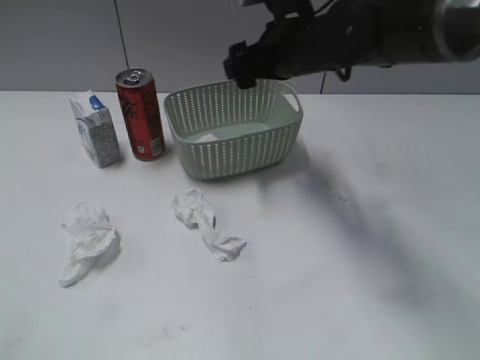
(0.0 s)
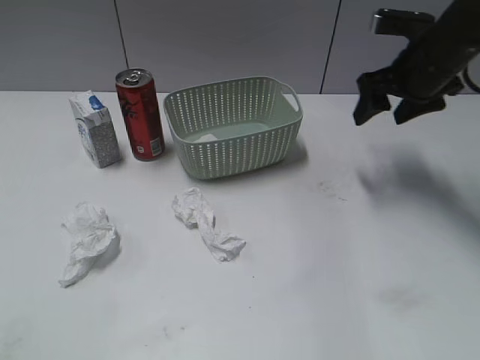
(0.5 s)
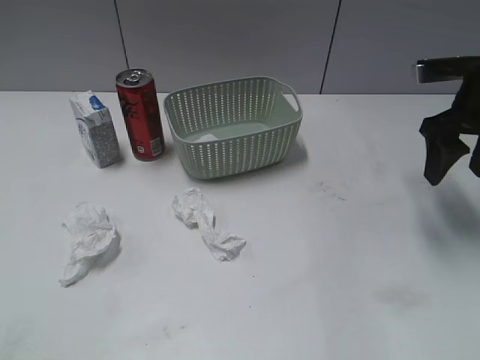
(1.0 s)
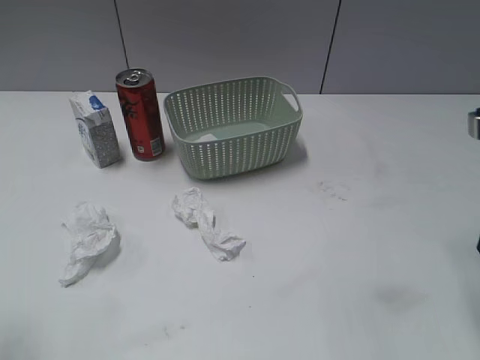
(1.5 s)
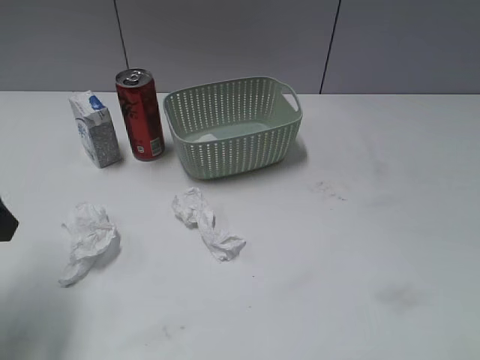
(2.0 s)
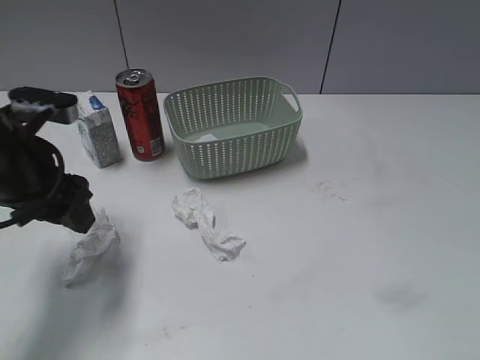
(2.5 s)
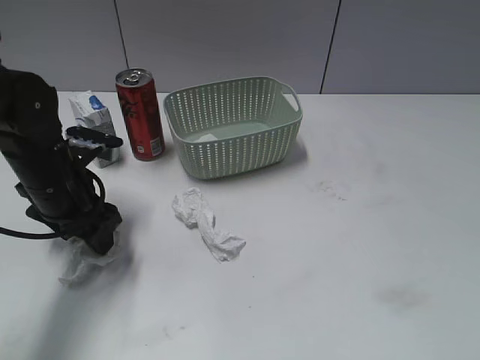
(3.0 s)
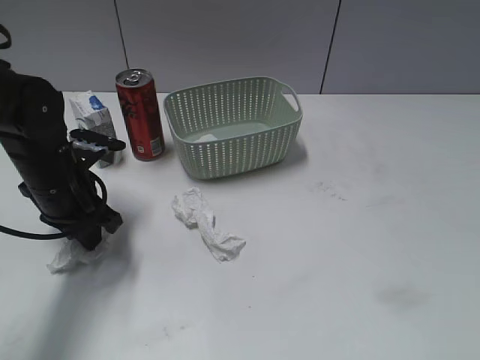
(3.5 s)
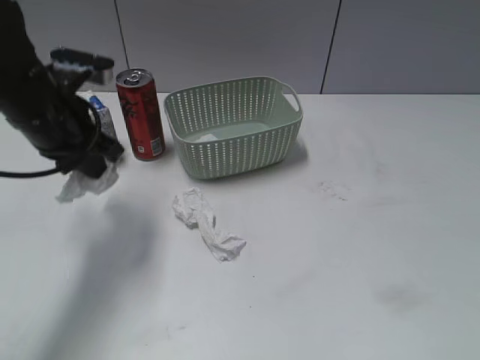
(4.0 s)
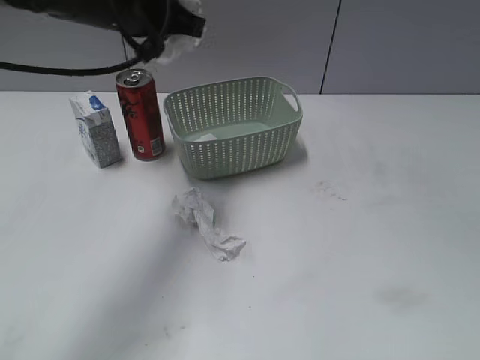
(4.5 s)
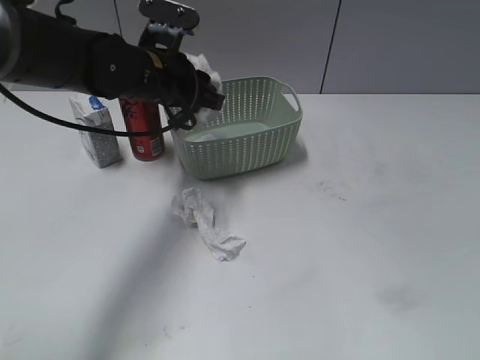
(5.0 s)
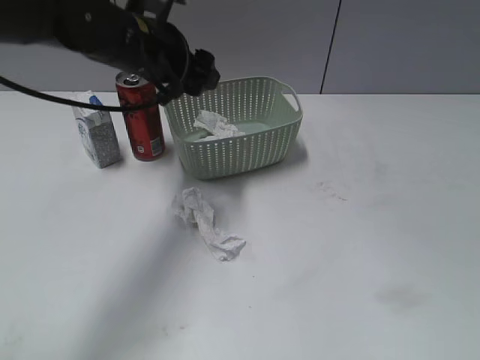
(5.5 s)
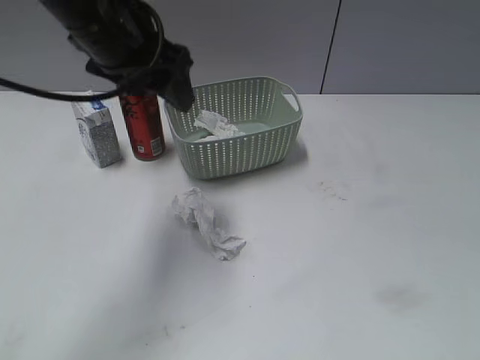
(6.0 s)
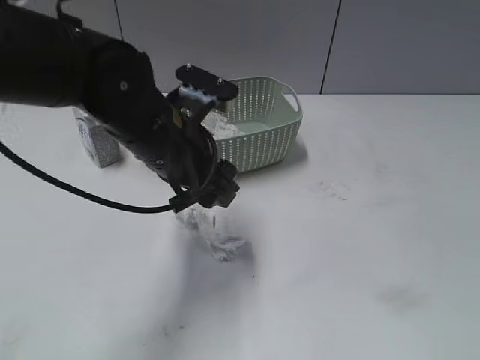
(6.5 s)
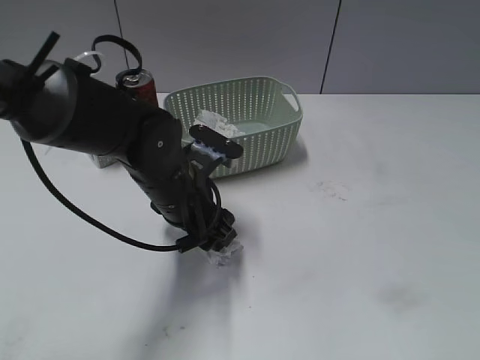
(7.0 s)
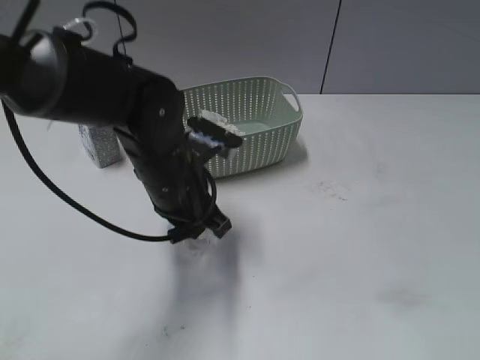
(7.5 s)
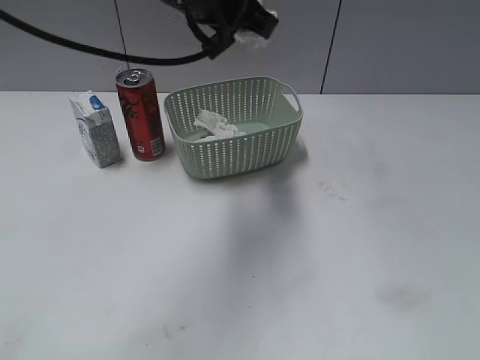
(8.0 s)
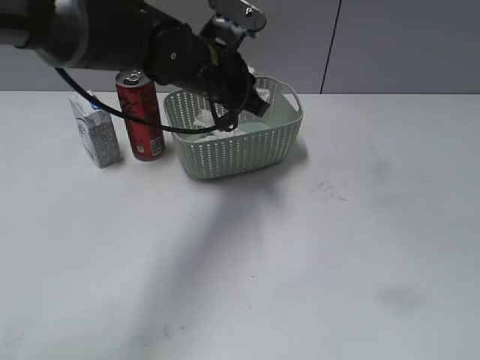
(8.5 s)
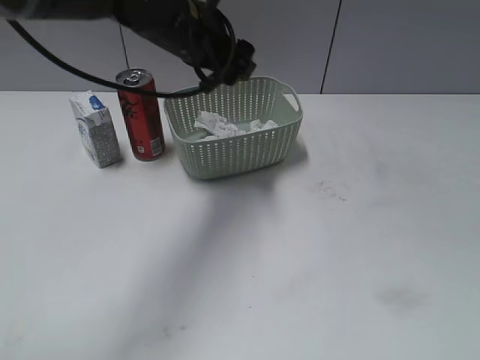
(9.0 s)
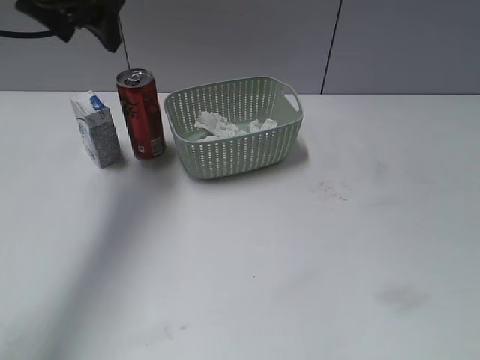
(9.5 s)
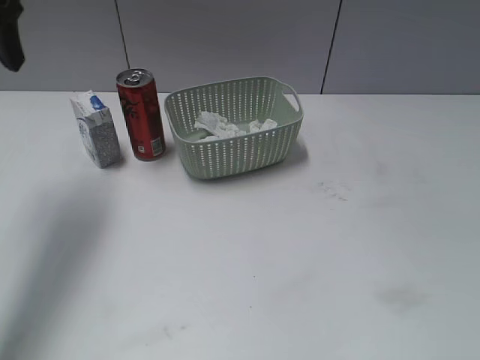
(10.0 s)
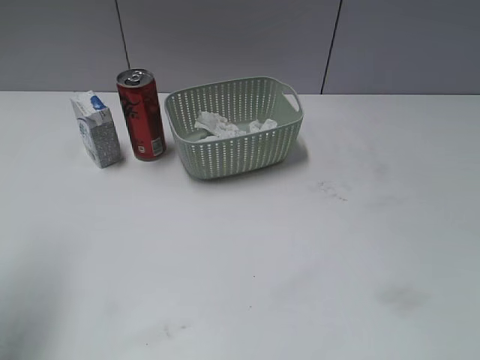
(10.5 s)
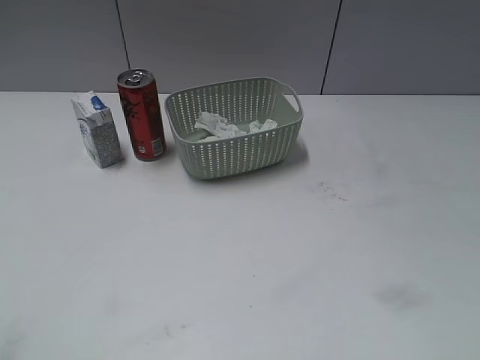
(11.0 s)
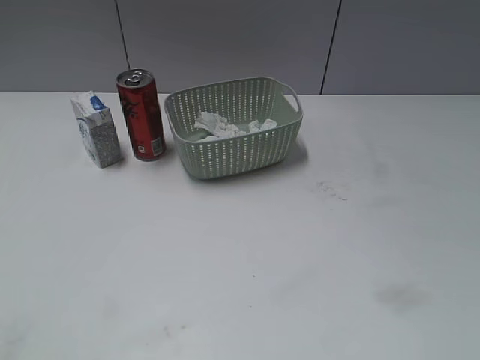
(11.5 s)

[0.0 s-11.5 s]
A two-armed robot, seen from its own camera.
Step, 0.0 to 3.5 s: Grasp the waste paper with left gripper.
Step, 4.0 to 5.0 s: Place the waste paper in the basket with left gripper.
Step, 5.5 to 7.5 s: Grasp the waste paper with left gripper.
Step, 8.0 to 8.5 s: Place the waste paper in the basket with left gripper.
0.0 to 2.0 s: The right gripper moves backward and to the right, approximately 35 cm. Meanwhile the left gripper shifts roughly 20 cm forward.
2.0 to 4.0 s: The left gripper heads forward and to the right, covering roughly 15 cm, travels downward and back again, about 10 cm each way, and closes its fingers.
4.0 to 6.0 s: The left gripper moves up and down over about 10 cm, changing direction 2 times, and opens up.
6.0 to 7.5 s: The left gripper moves downward, approximately 15 cm, and closes its fingers.
7.5 to 9.5 s: The left gripper goes up and down, about 20 cm each way, reversing 2 times, and opens up.
9.5 to 11.5 s: The left gripper moves backward, approximately 40 cm.

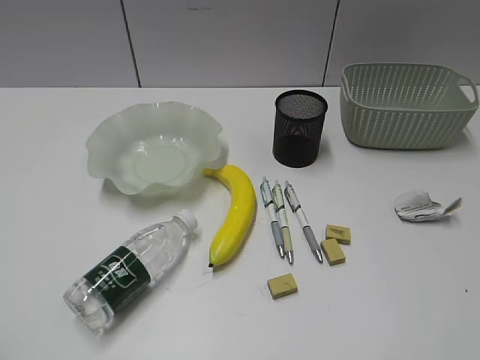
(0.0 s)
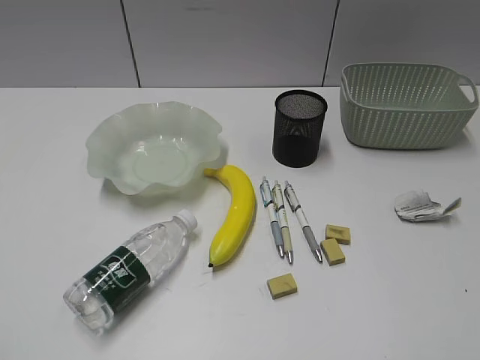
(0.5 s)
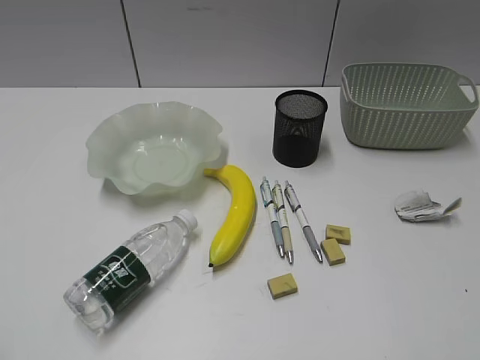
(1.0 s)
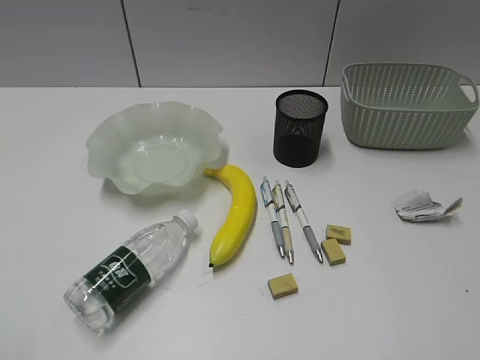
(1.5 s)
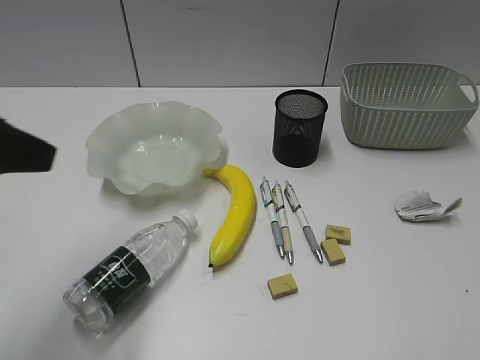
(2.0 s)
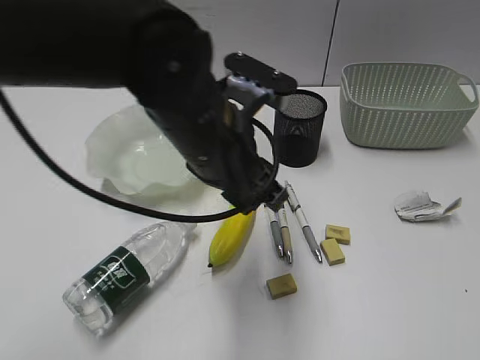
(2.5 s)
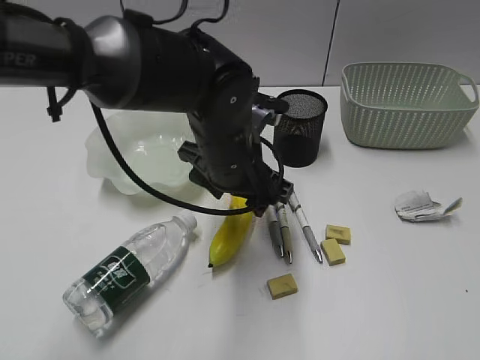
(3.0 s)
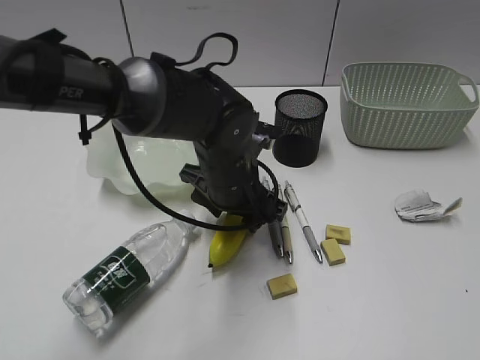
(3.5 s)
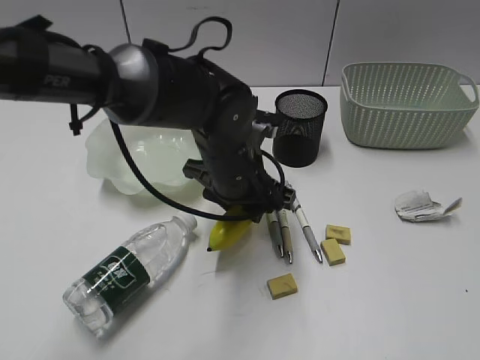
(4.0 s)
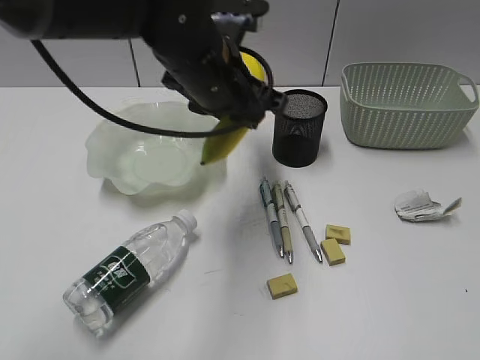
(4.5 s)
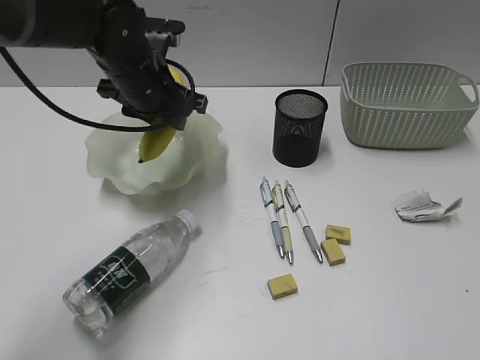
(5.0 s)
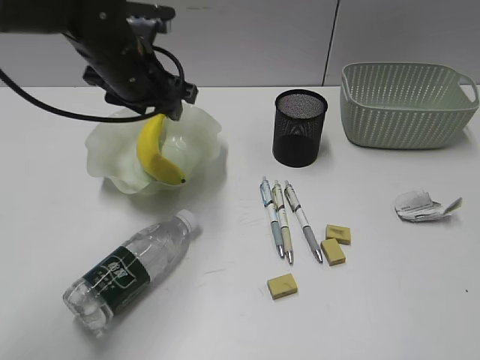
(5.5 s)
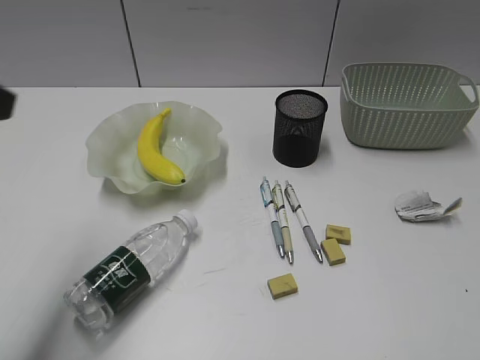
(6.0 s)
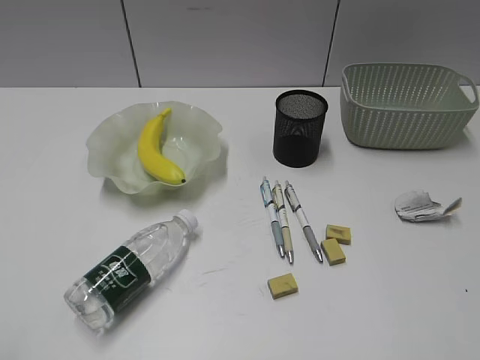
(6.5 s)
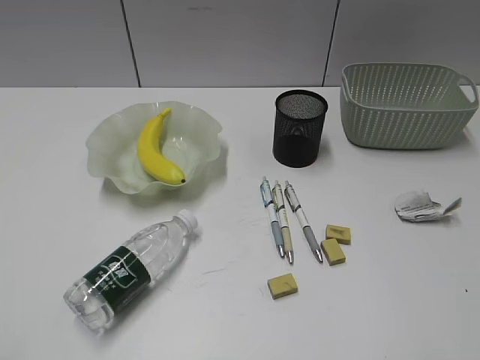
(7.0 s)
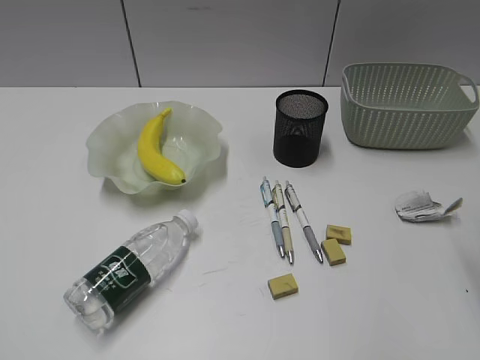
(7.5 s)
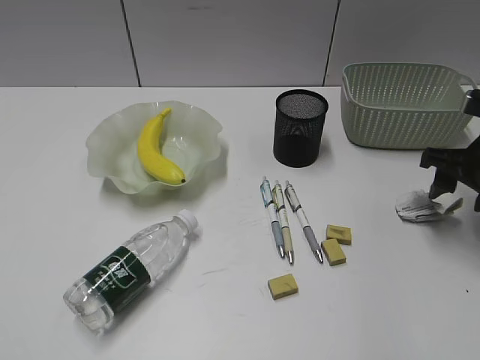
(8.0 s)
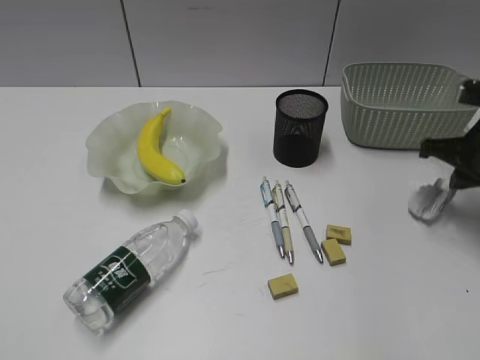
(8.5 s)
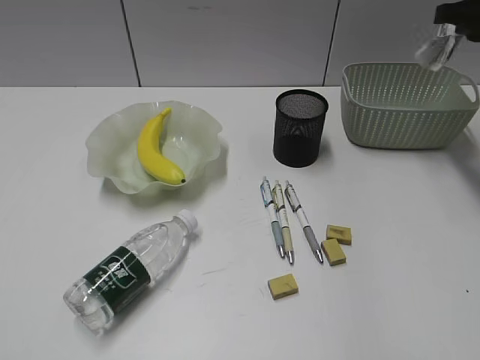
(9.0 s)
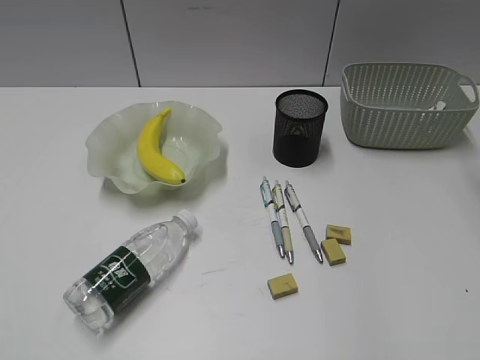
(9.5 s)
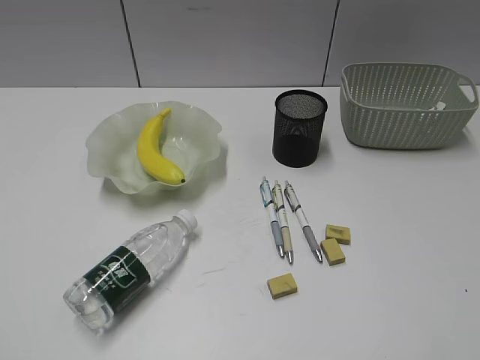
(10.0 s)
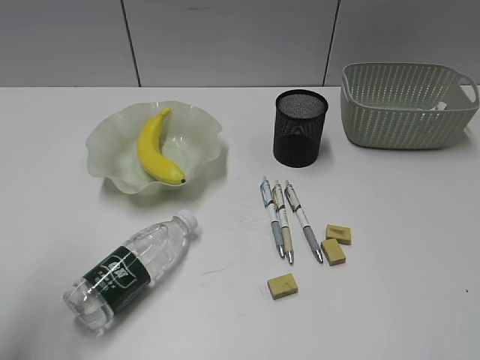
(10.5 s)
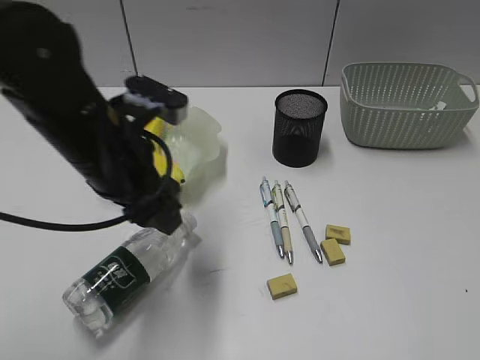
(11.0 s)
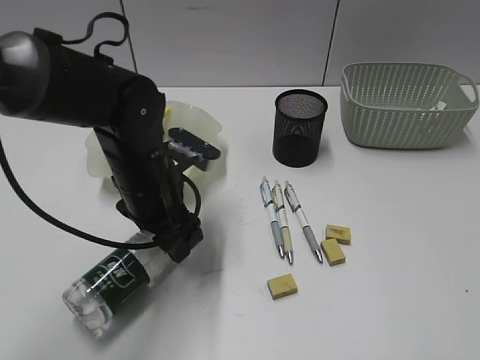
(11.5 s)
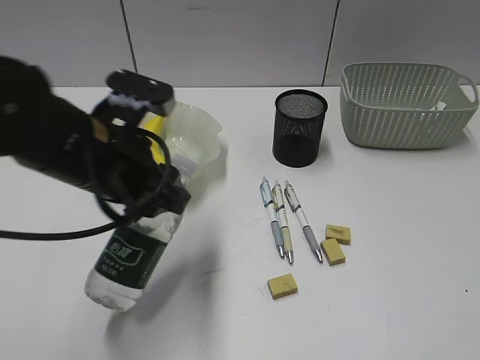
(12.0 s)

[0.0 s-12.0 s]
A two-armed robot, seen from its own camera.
Step, 1.5 to 3.5 s: Grasp the banana with left gripper.
Step, 4.0 to 5.0 s: Place the banana in the plate with left gripper.
Step, 5.5 to 8.5 s: Grasp the waste paper with right gripper.
Step, 9.5 to 11.5 s: Grasp the bottle with left gripper.
2.0 to 4.0 s: The left gripper goes about 35 cm to the right, downward and forward, and opens, then closes again.
4.0 to 6.0 s: The left gripper travels to the left, upward and backward by roughly 35 cm.
6.0 to 8.0 s: The right gripper moves forward and downward, roughly 35 cm, and opens, while the left gripper moves backward and to the left, some 20 cm.
8.0 to 10.0 s: The right gripper is displaced backward and upward by about 30 cm, and closes, then reopens.
10.0 to 12.0 s: The left gripper travels forward and to the right by some 35 cm, and opens, then closes again. The right gripper goes about 5 cm backward.

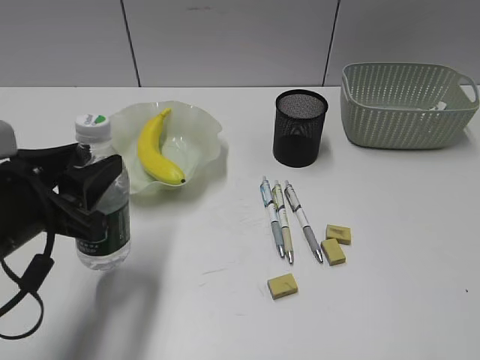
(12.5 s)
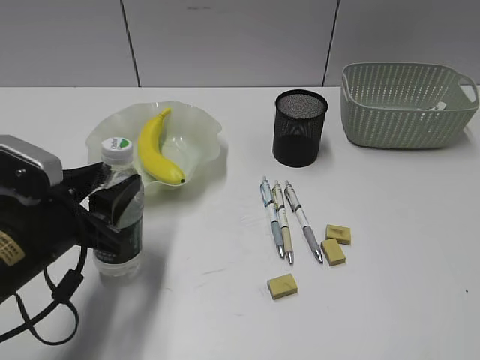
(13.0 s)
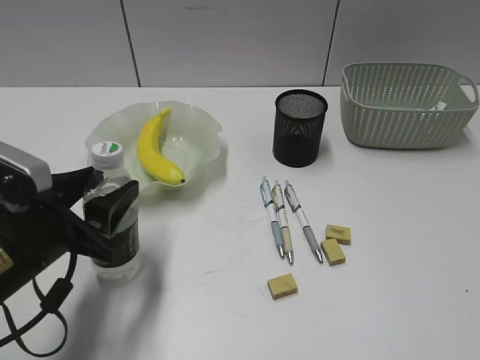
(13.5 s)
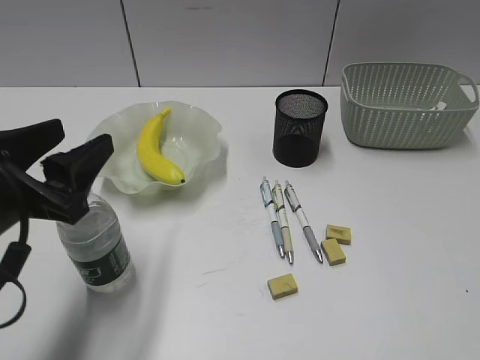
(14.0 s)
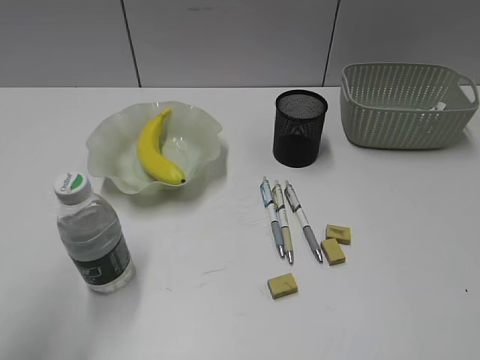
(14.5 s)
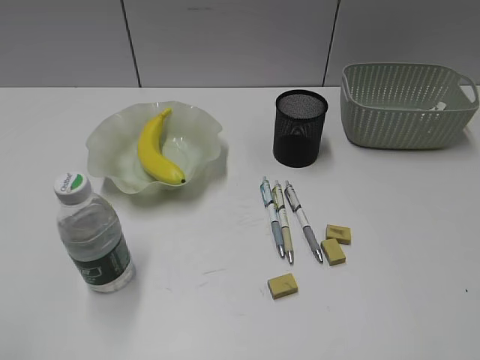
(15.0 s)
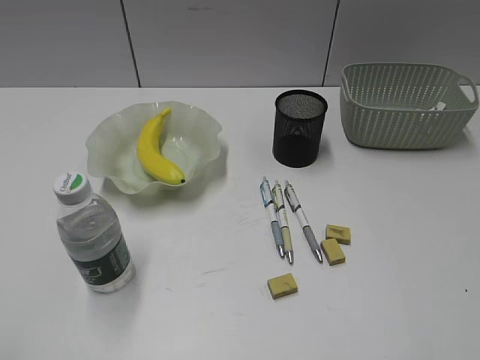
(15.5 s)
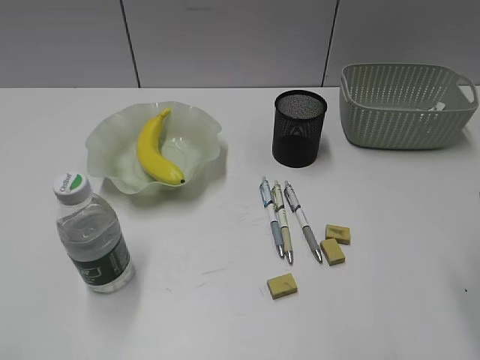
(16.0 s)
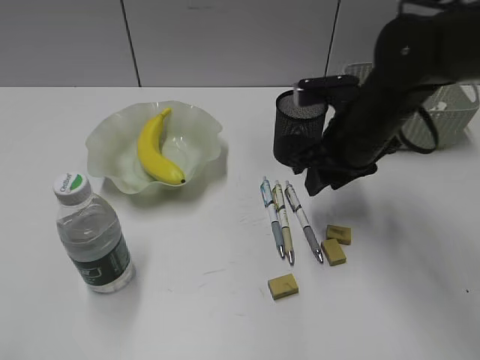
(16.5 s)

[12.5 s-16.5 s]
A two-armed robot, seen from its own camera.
12.5 to 14.5 s: The left gripper goes approximately 15 cm upward, backward and to the left.
14.5 to 16.5 s: The right gripper is displaced forward and to the left by approximately 40 cm; the left gripper travels backward and to the left by some 15 cm.
